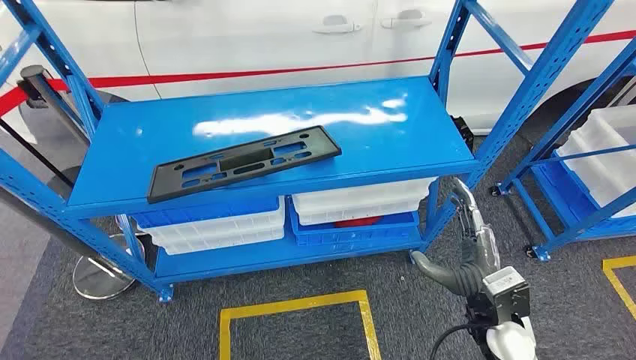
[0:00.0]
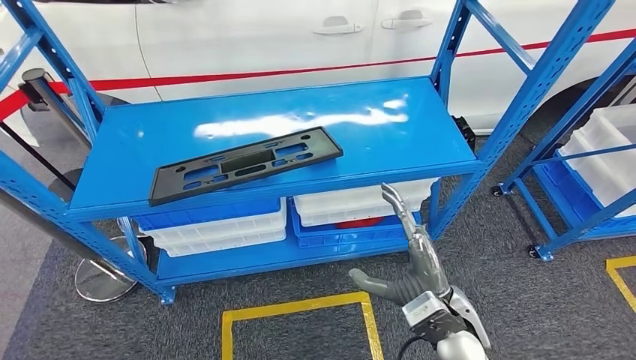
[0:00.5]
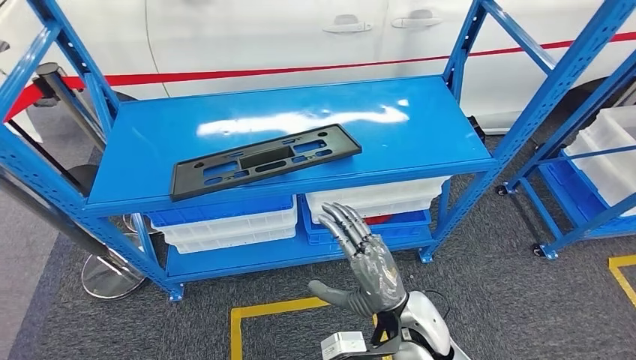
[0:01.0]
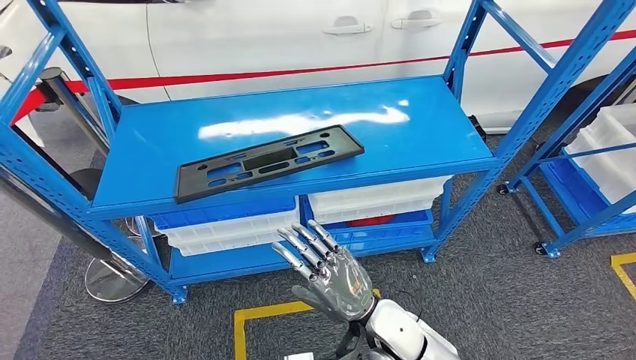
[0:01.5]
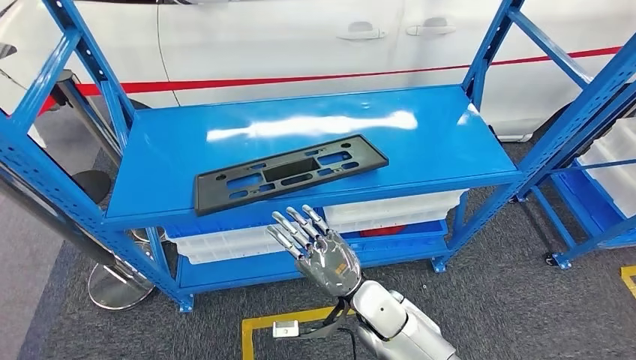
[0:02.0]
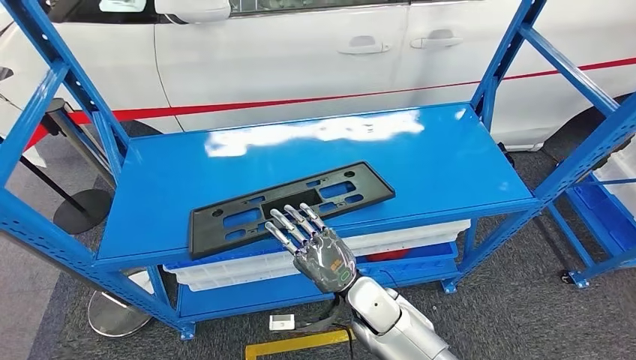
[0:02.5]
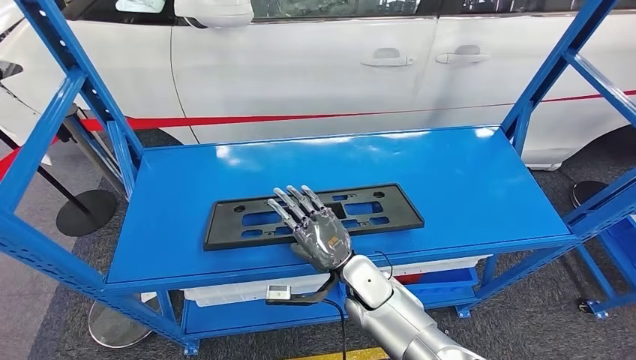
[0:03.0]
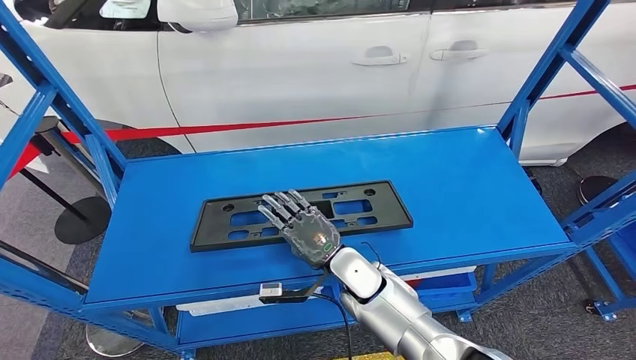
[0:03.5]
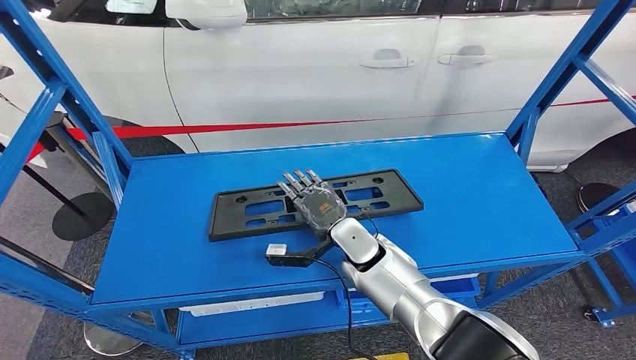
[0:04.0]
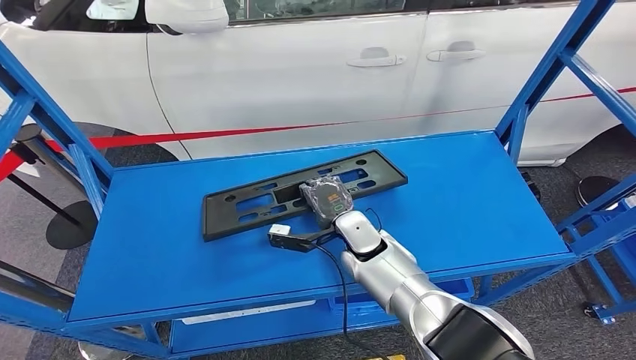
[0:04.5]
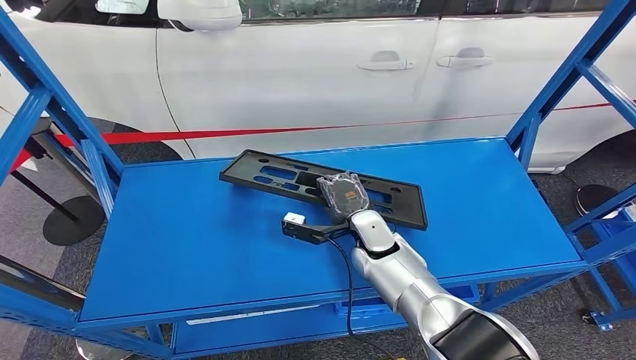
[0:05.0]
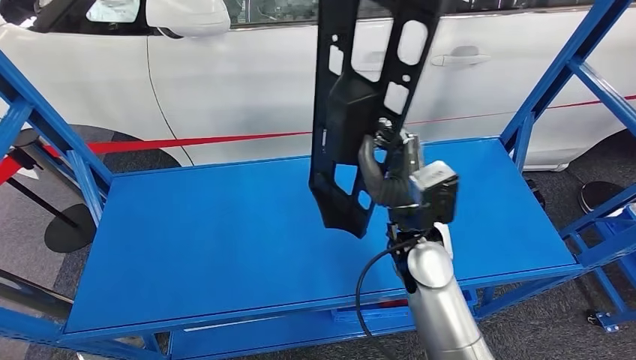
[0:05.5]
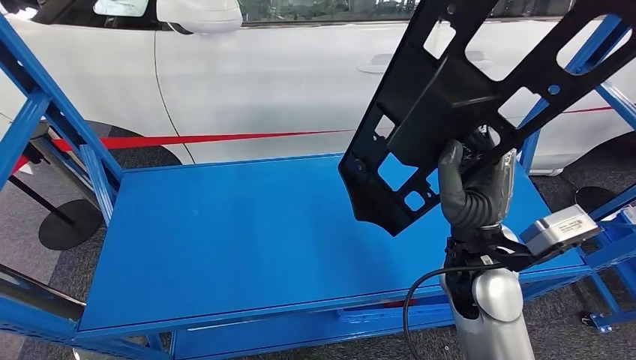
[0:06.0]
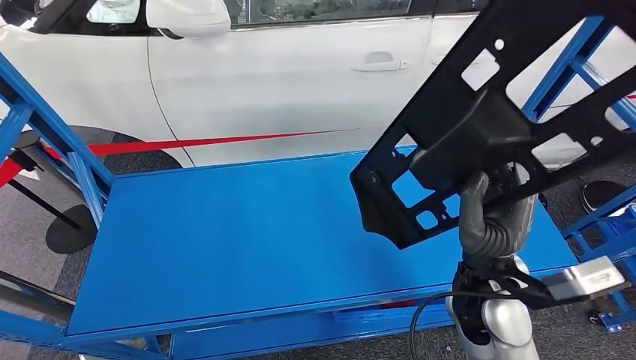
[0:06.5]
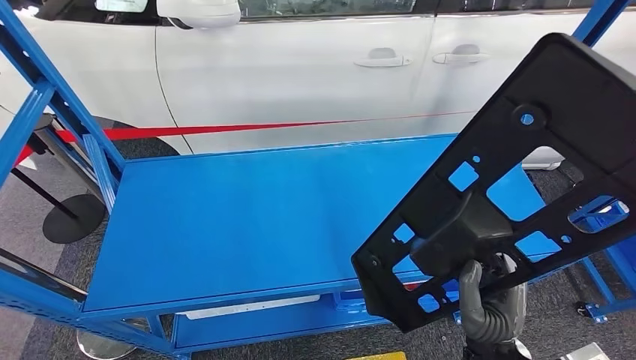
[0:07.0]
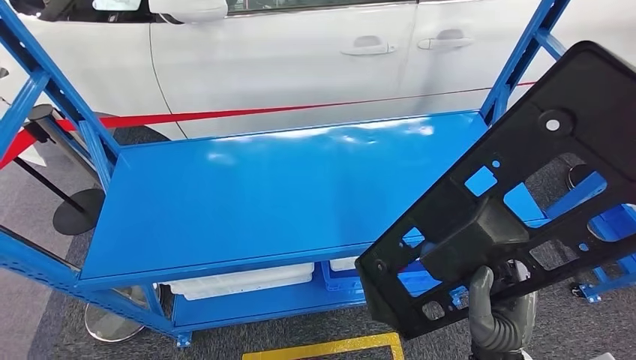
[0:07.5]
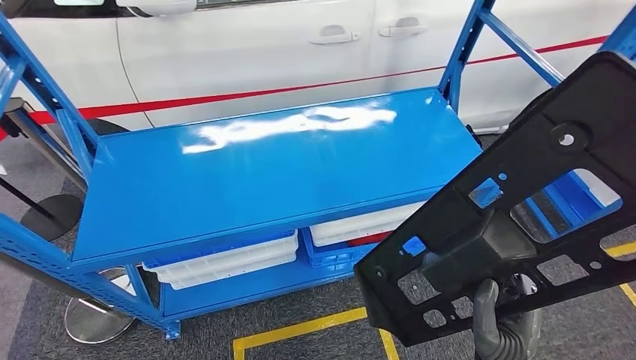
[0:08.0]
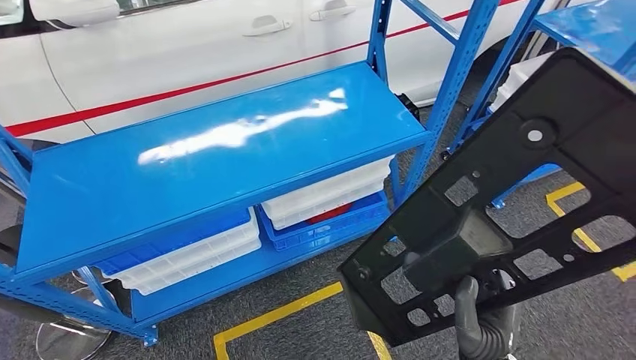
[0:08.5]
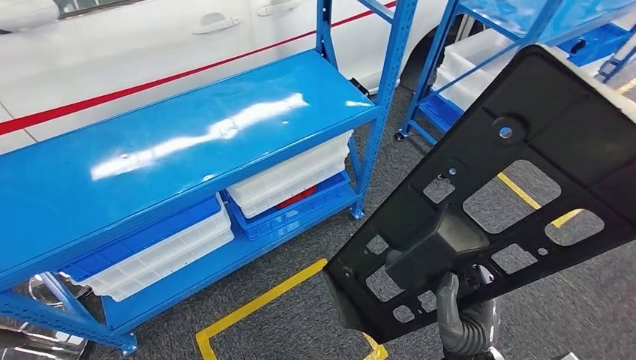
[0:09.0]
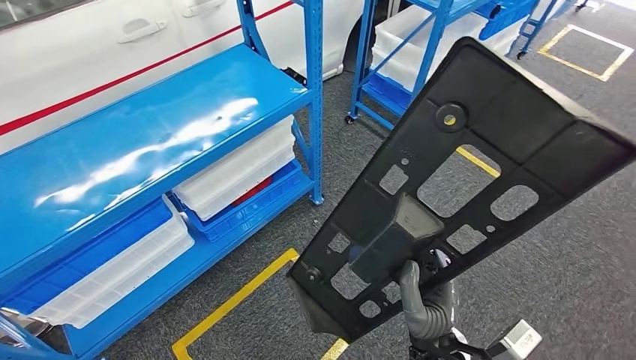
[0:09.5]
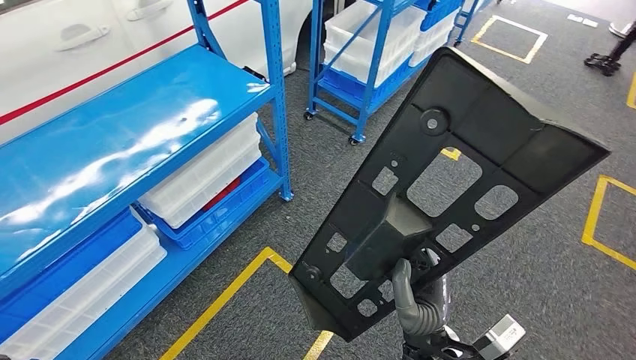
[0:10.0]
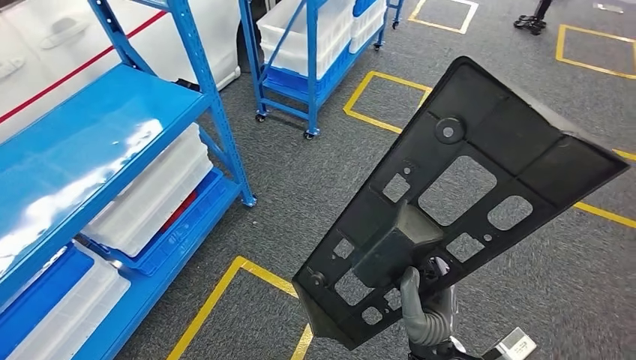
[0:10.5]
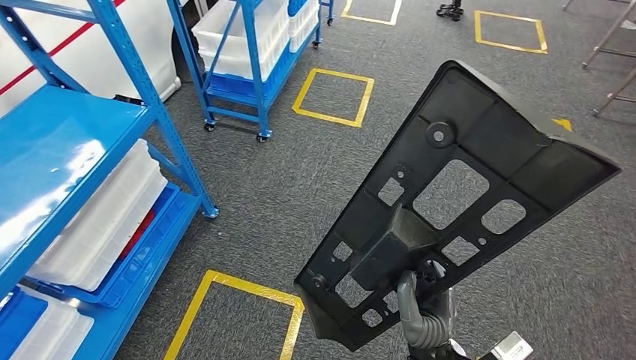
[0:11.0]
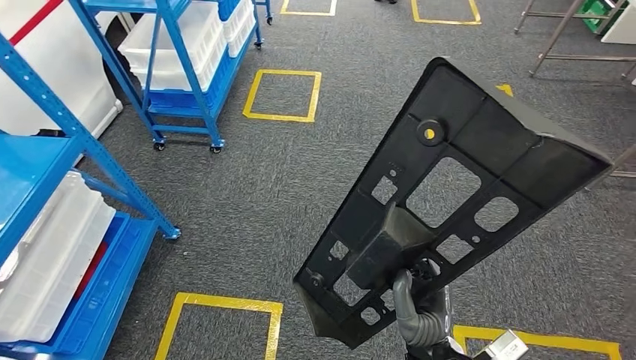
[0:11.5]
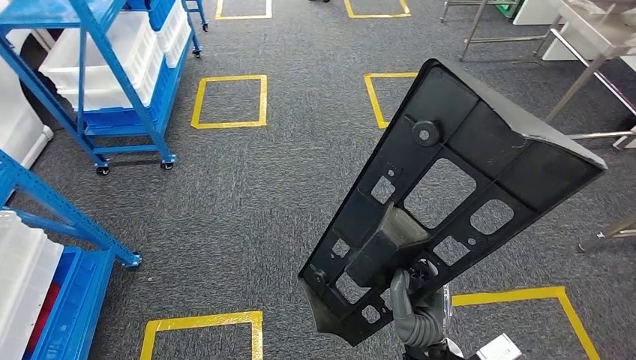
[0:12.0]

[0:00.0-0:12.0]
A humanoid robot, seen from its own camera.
Step, 0:00.0 to 0:05.5: Pick up the large material from the shelf.

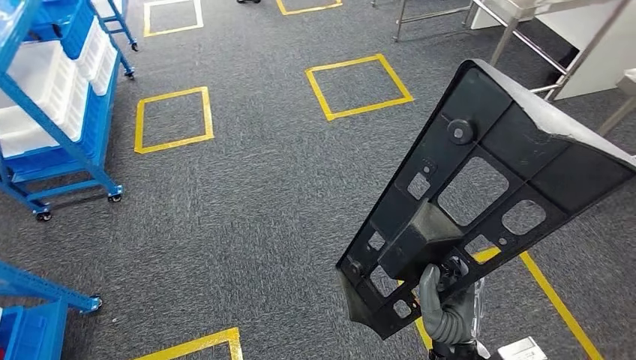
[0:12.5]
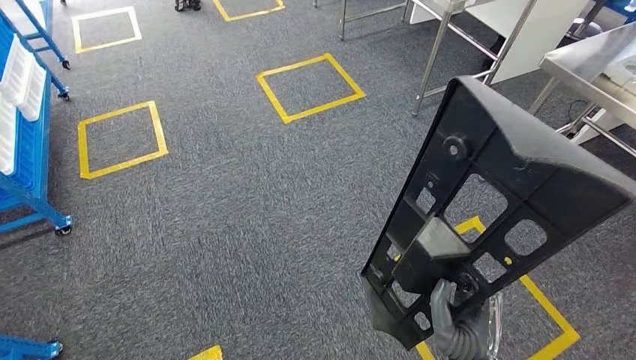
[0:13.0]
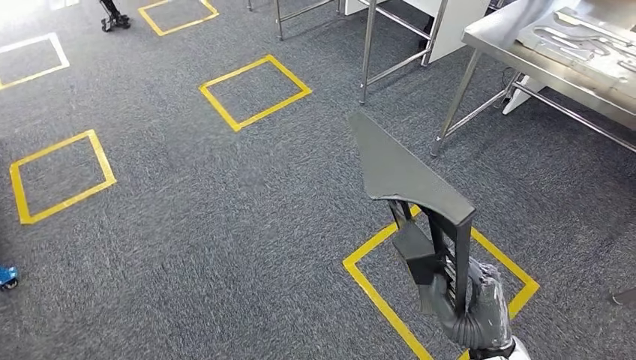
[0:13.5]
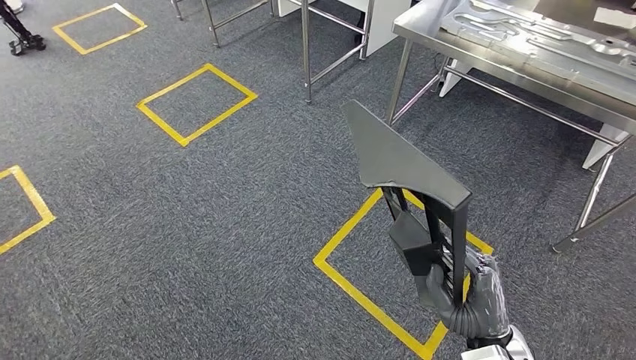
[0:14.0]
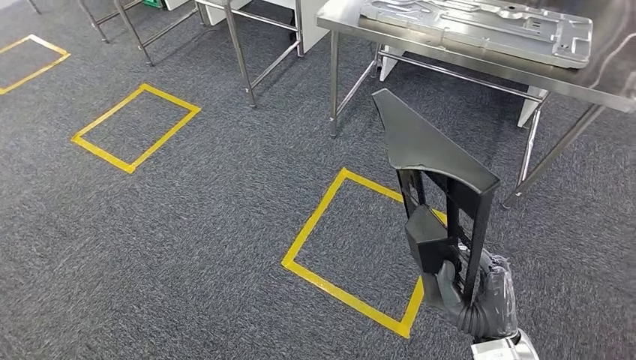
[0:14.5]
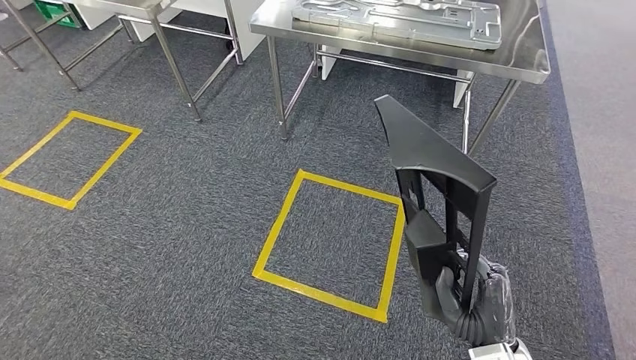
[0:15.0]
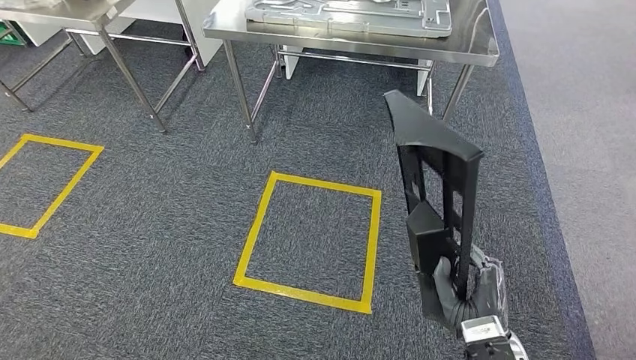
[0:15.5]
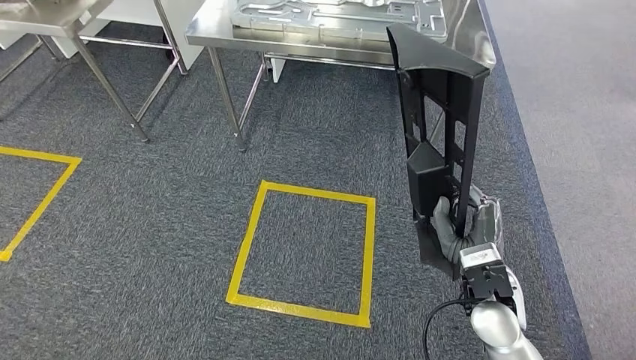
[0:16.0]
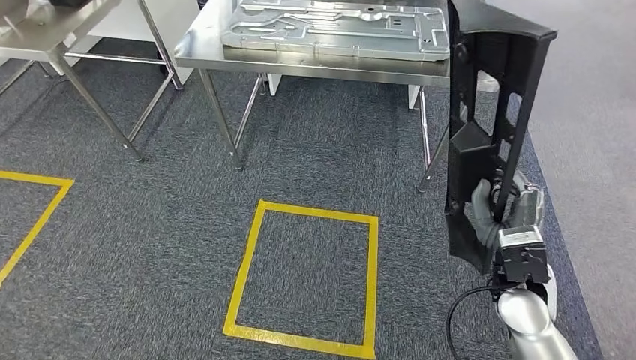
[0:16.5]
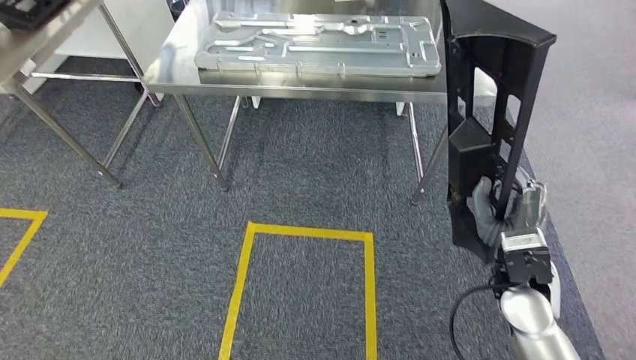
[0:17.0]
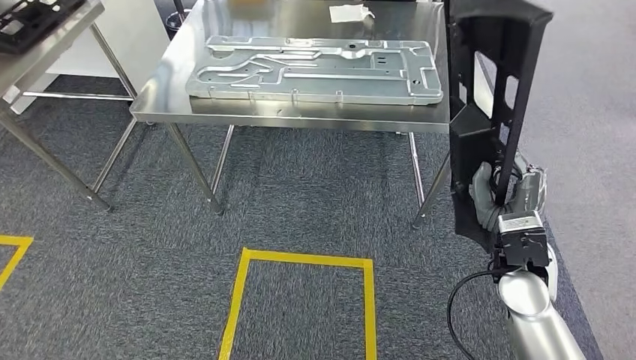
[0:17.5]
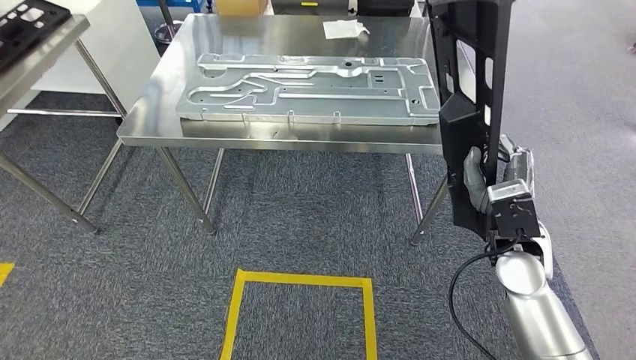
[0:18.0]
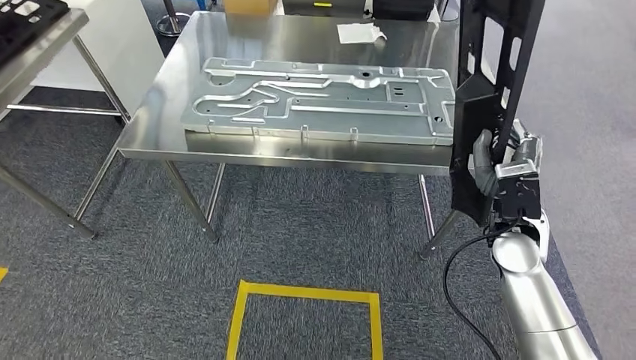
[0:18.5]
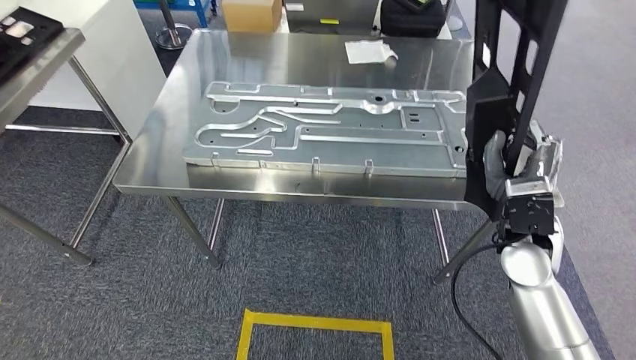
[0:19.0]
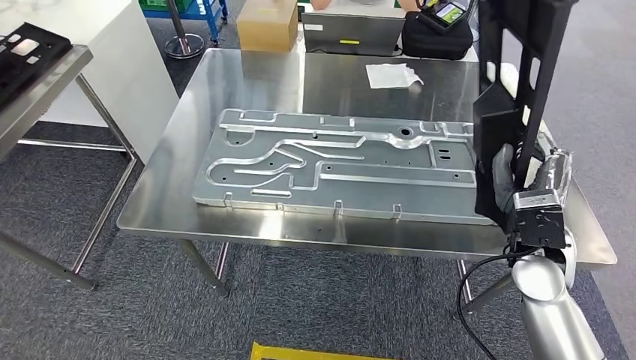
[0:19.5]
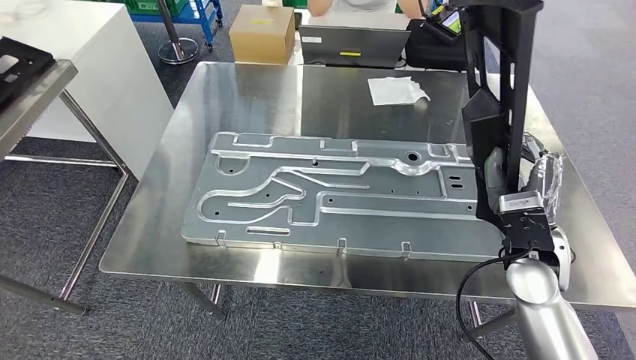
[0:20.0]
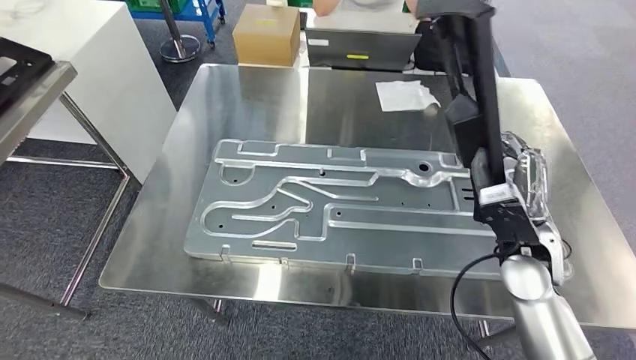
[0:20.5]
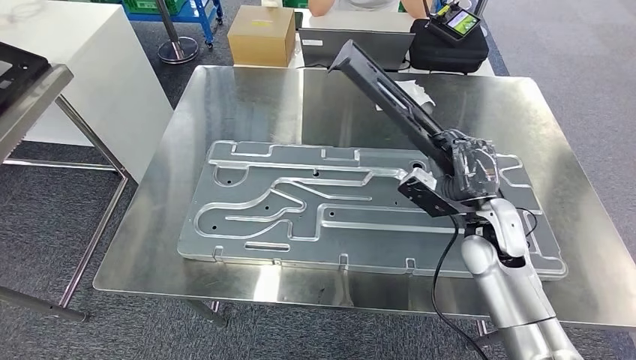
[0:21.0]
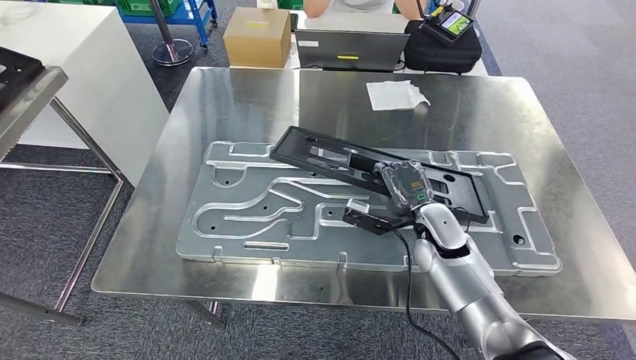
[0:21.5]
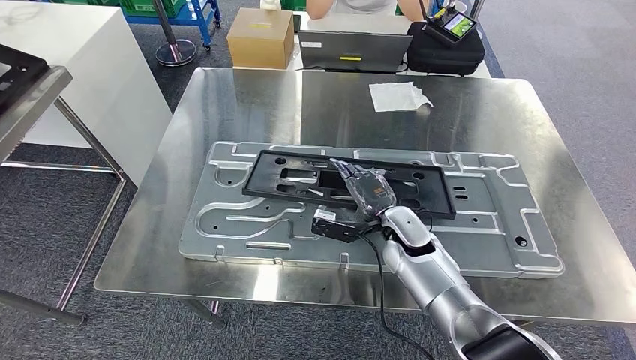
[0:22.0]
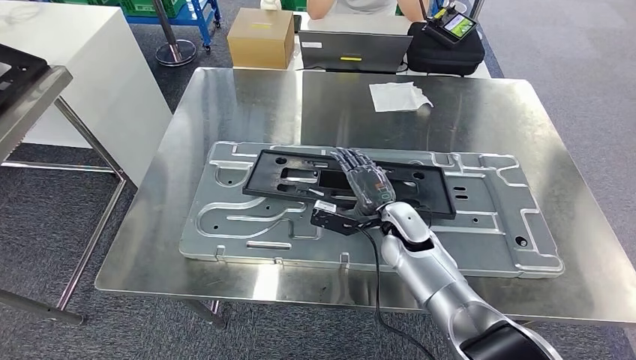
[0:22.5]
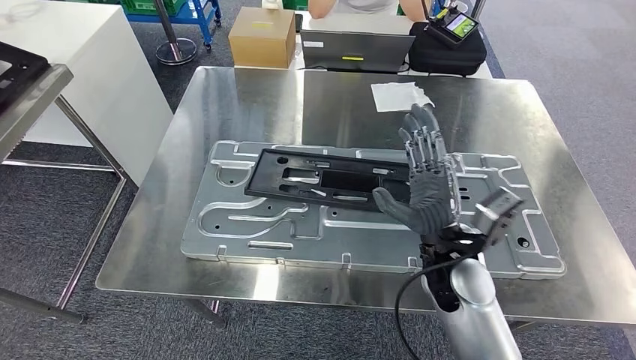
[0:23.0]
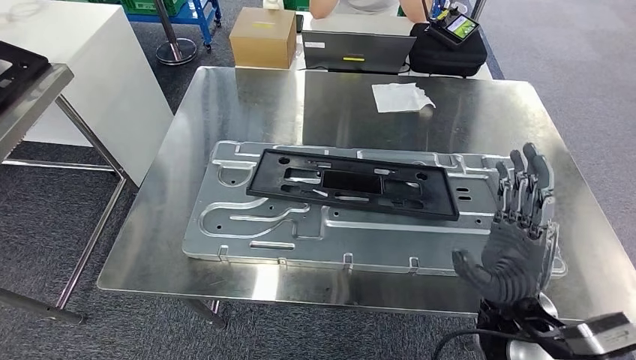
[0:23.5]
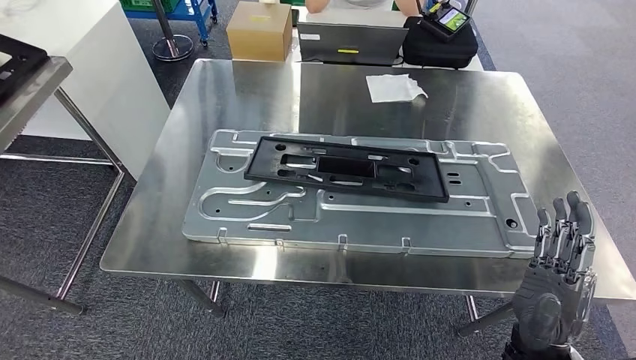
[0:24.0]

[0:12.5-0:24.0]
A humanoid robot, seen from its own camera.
Step, 0:12.5 to 0:18.0: Move the large material to the workbench.
